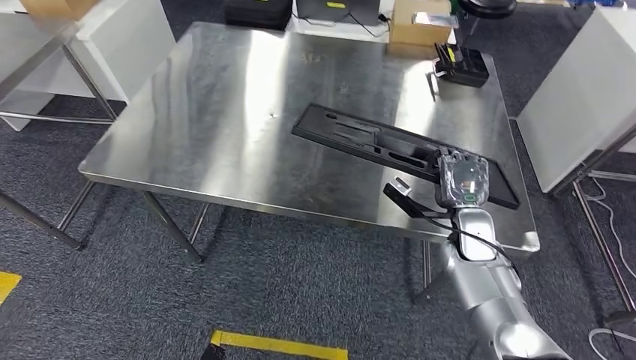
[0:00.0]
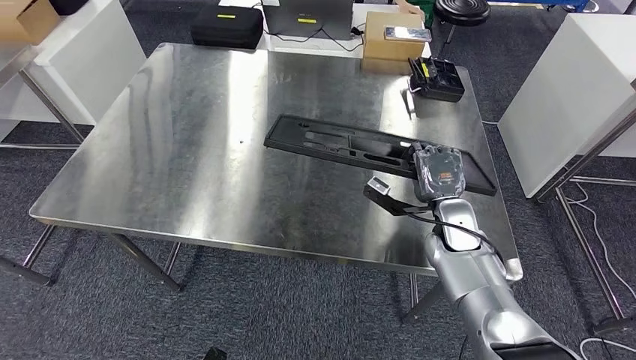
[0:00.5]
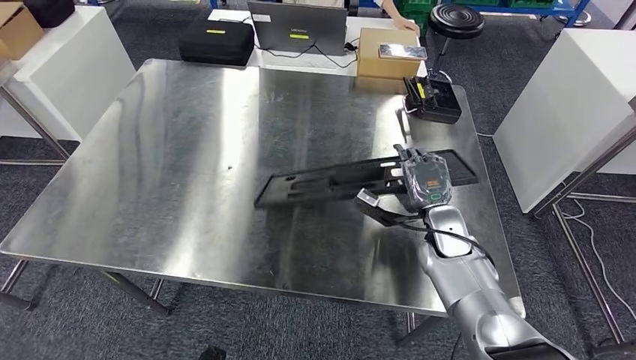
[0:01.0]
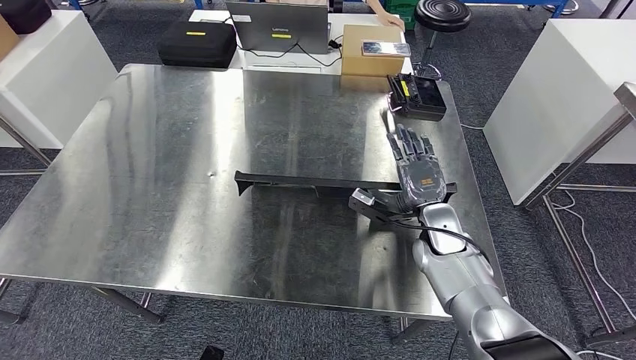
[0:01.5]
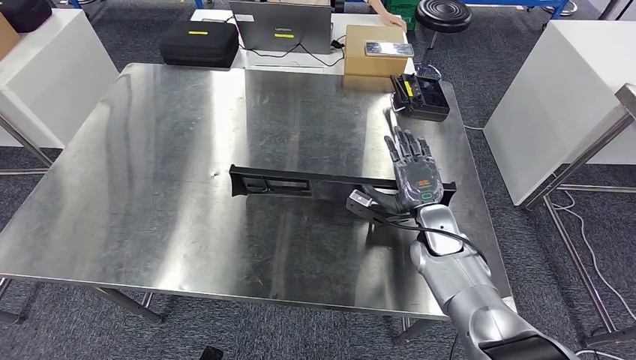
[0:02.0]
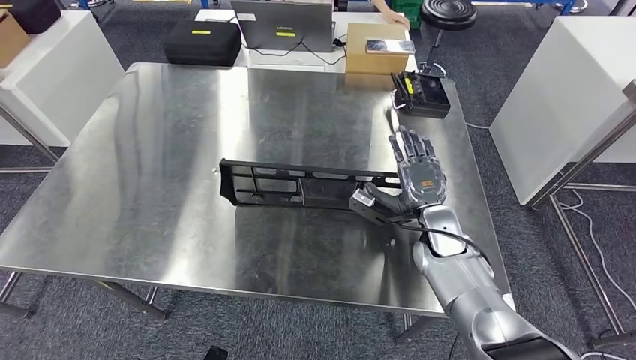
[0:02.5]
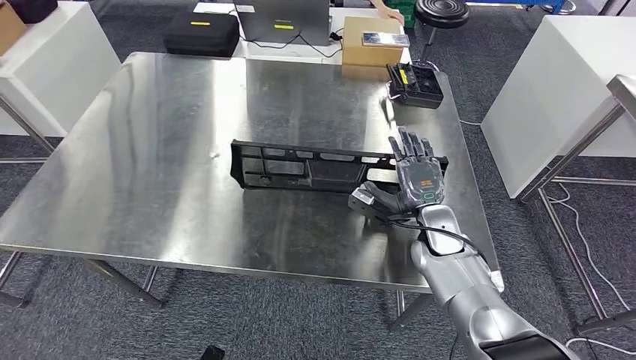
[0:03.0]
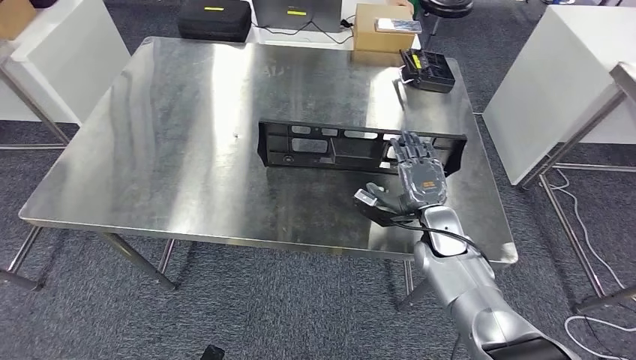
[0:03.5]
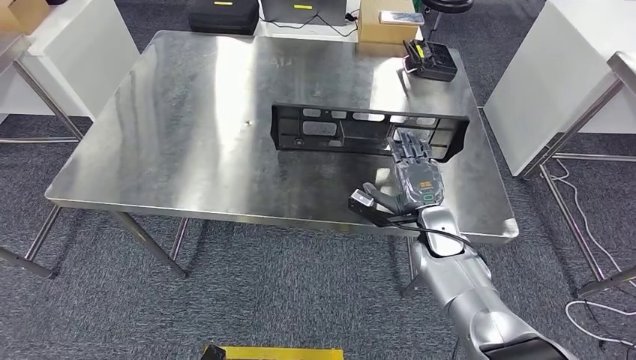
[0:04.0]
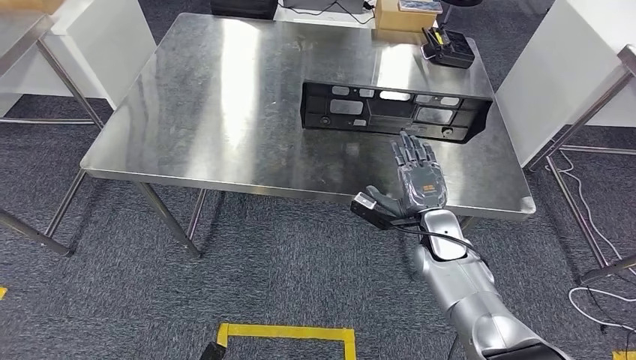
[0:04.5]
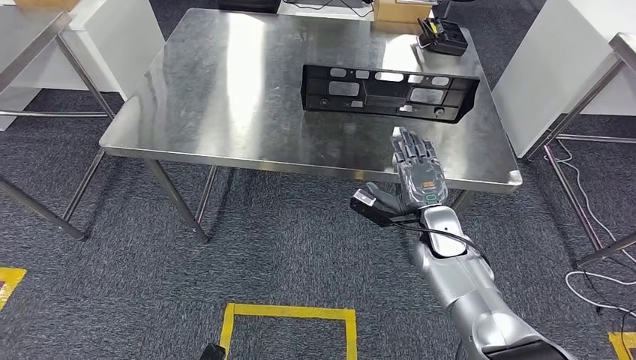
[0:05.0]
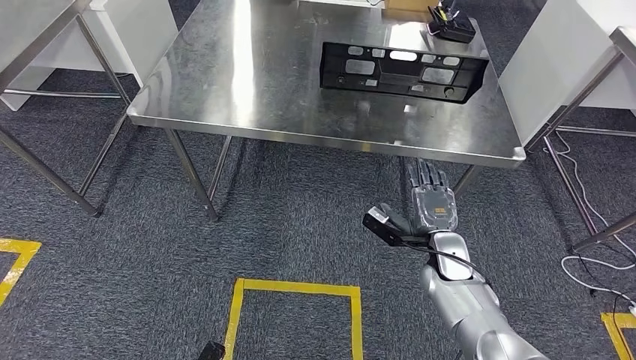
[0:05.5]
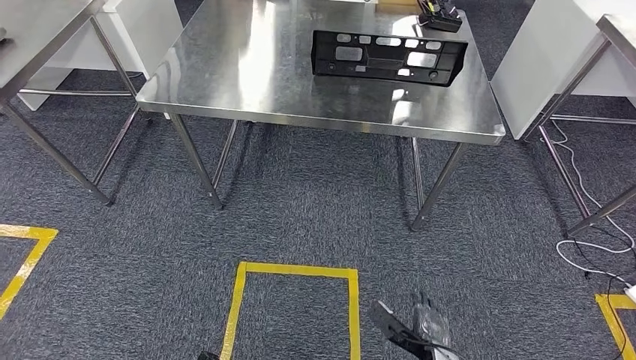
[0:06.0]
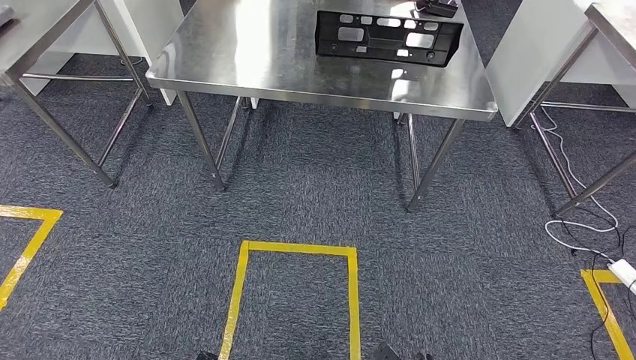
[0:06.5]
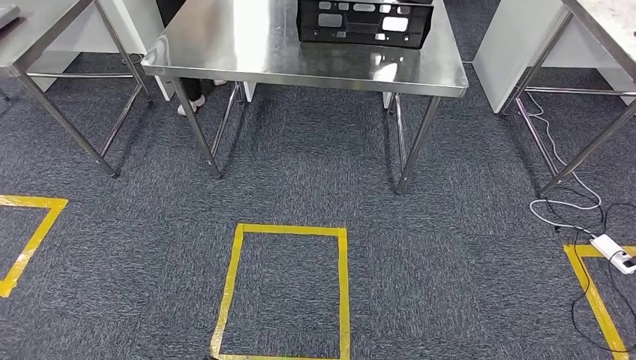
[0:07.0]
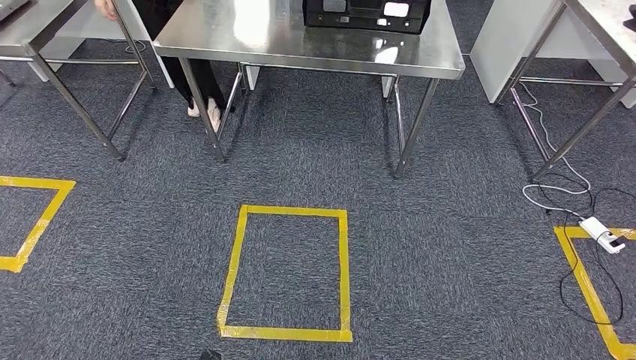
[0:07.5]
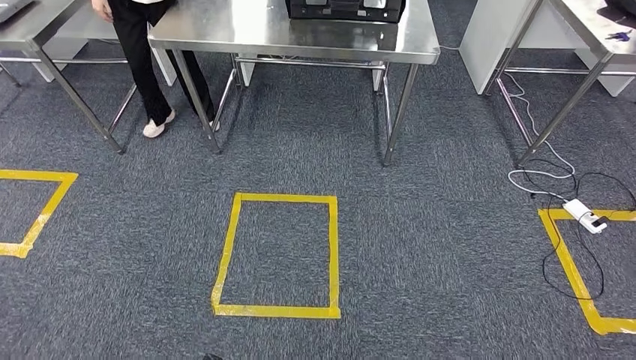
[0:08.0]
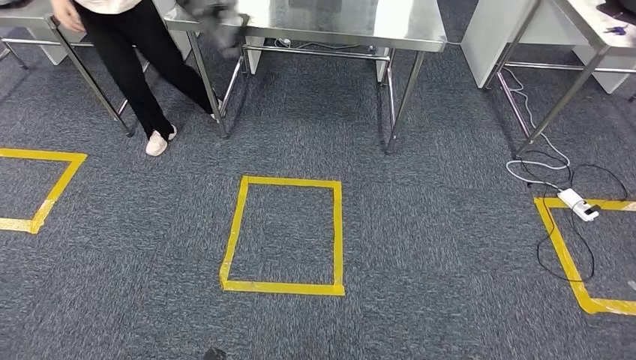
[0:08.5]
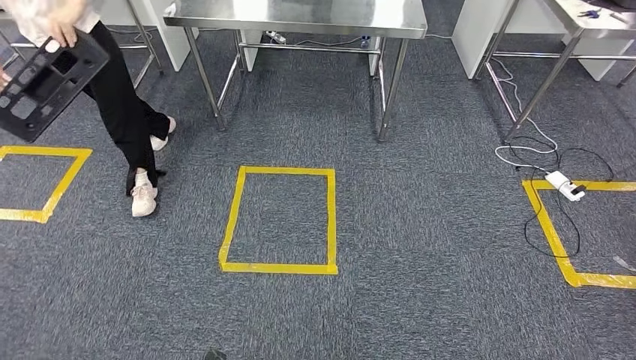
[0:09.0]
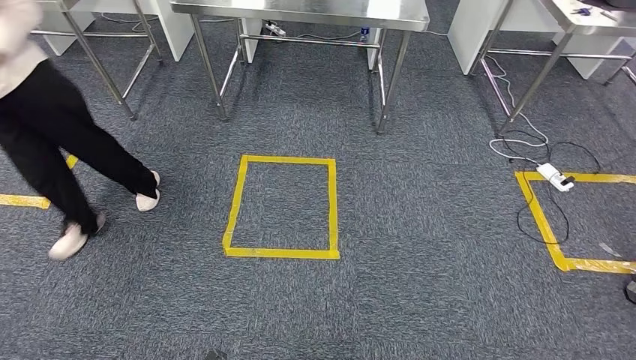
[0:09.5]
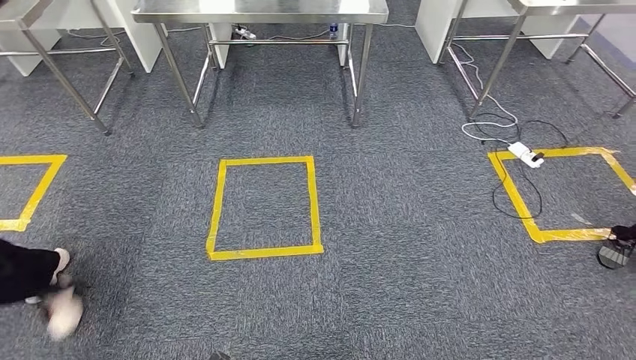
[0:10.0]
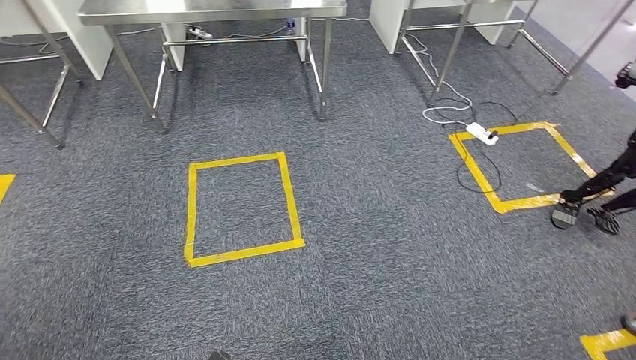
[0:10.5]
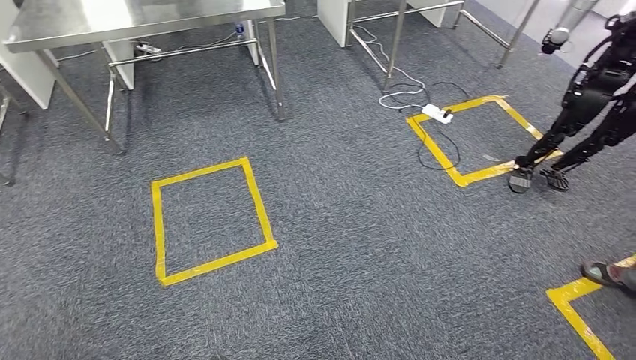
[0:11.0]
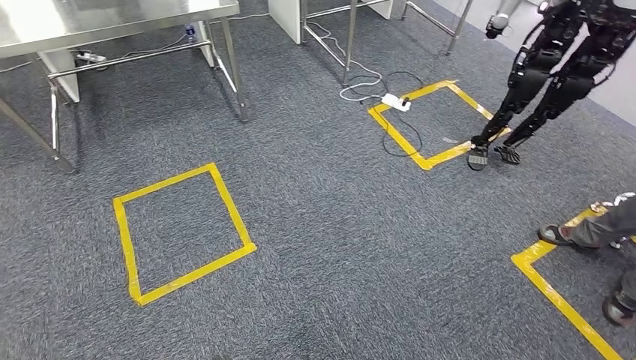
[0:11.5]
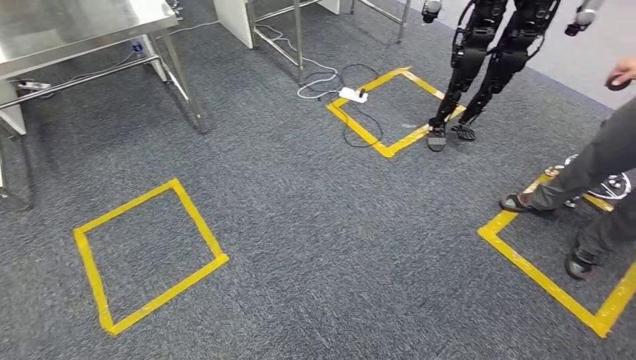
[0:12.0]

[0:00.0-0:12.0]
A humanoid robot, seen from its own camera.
Step, 0:00.0 to 0:06.0: Insert the large material into the corresponding slot on the workbench.

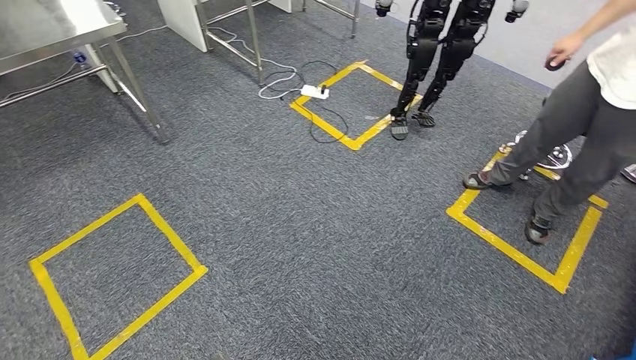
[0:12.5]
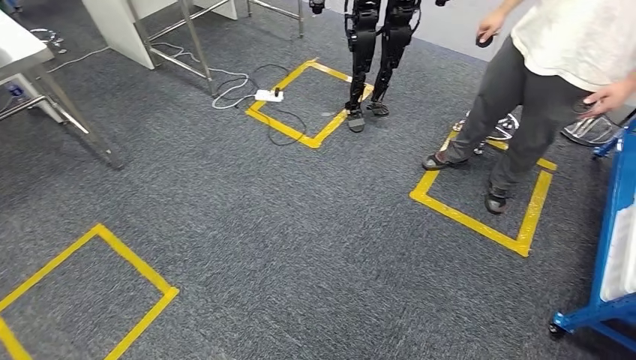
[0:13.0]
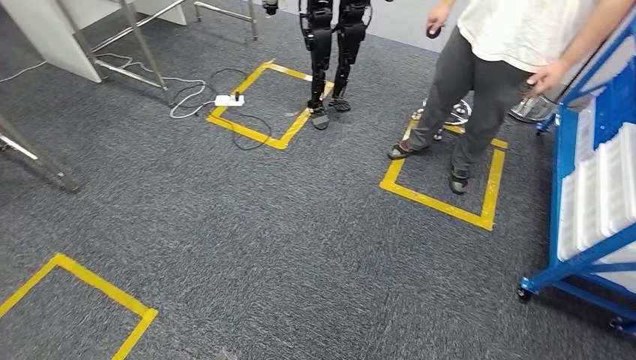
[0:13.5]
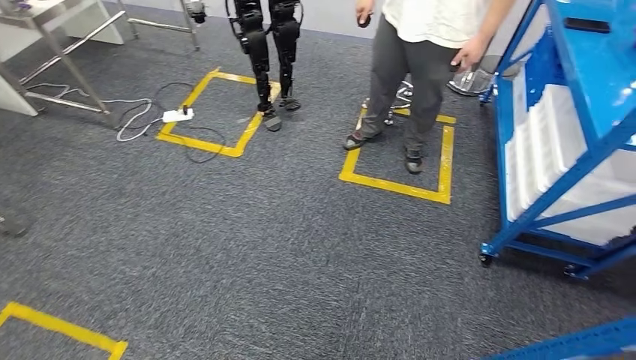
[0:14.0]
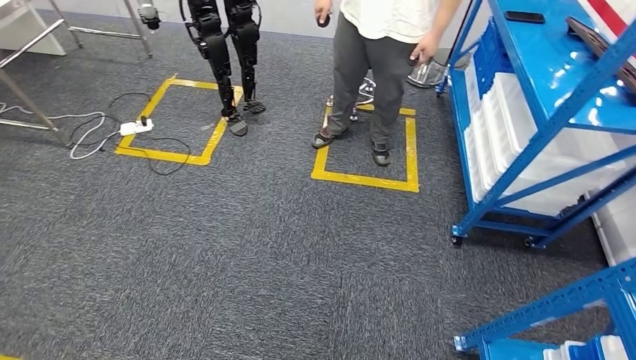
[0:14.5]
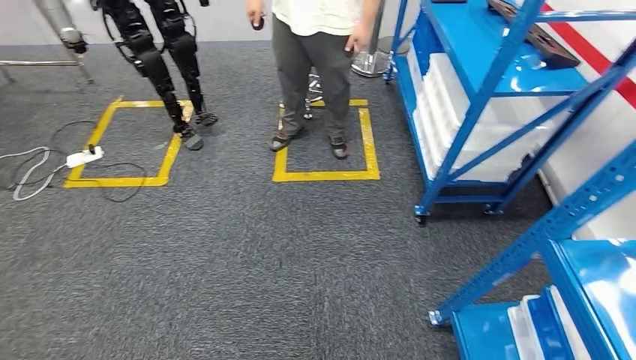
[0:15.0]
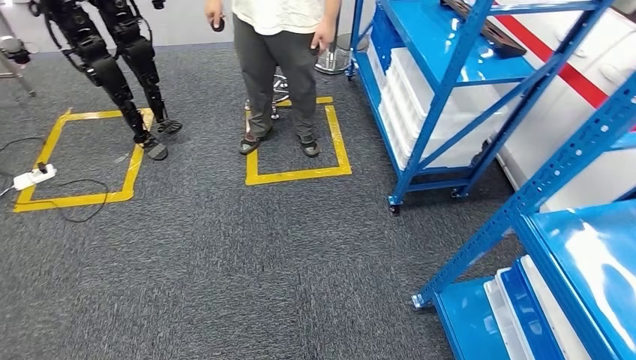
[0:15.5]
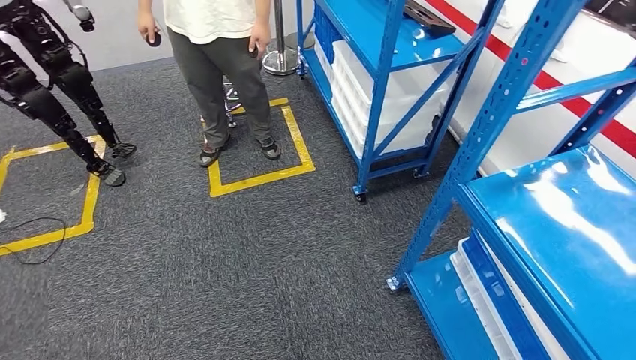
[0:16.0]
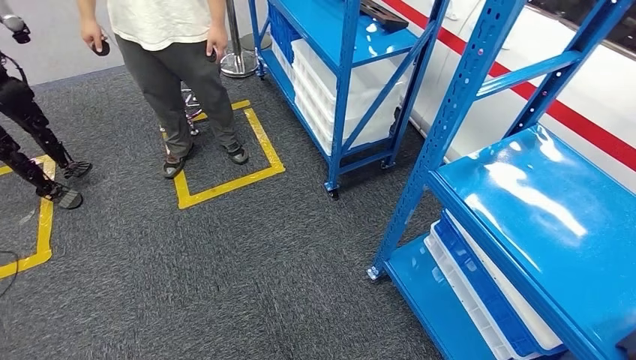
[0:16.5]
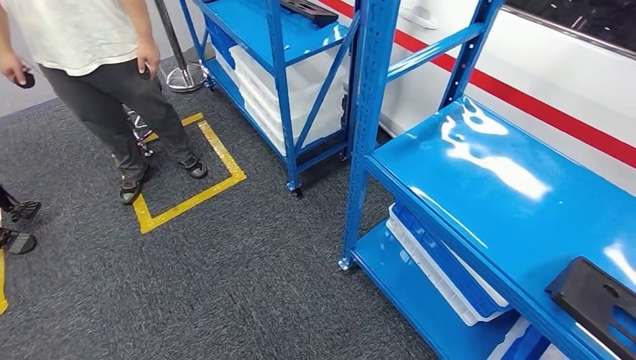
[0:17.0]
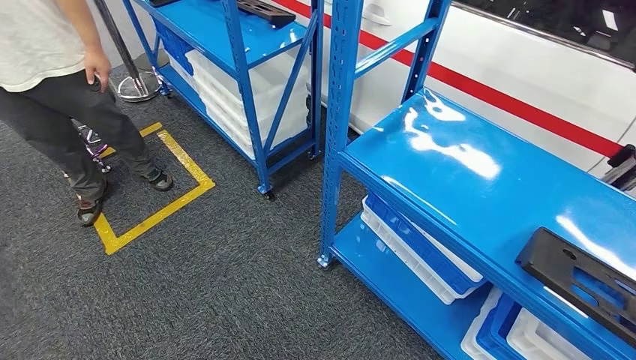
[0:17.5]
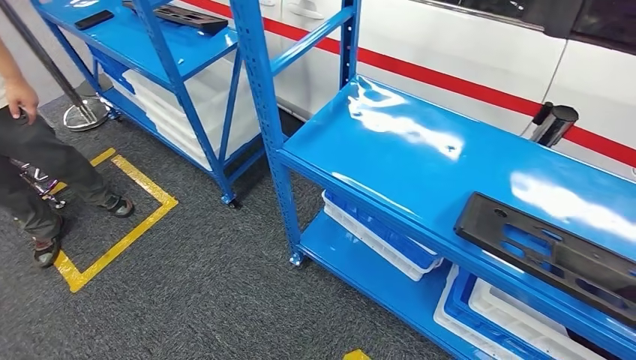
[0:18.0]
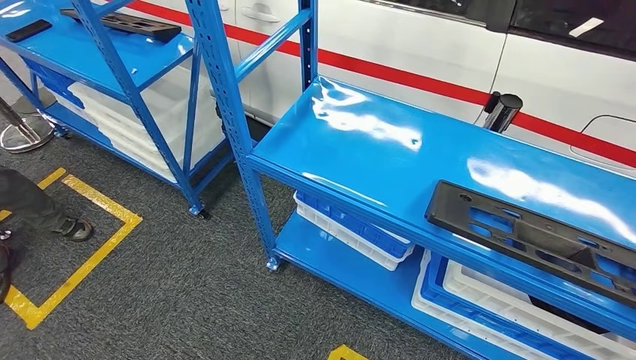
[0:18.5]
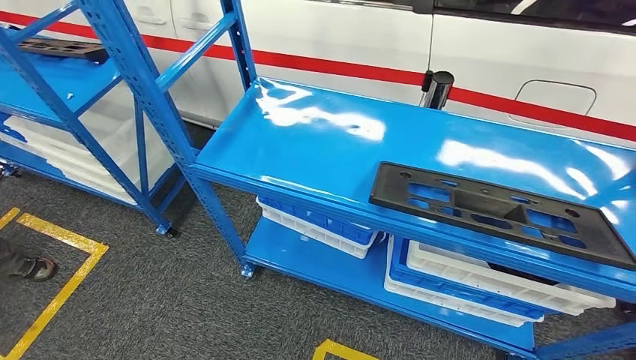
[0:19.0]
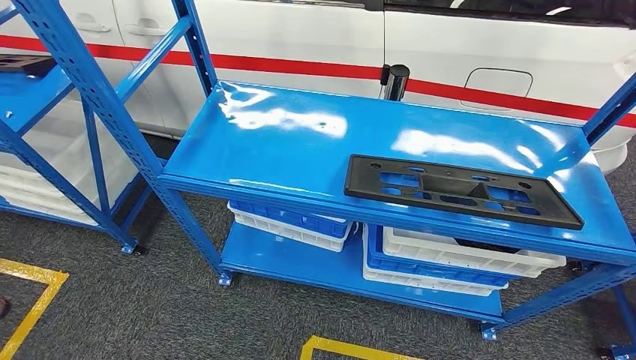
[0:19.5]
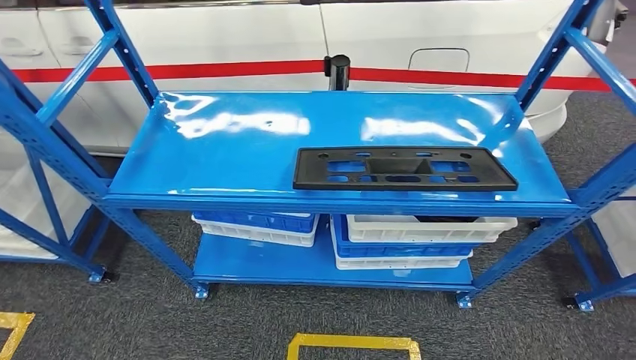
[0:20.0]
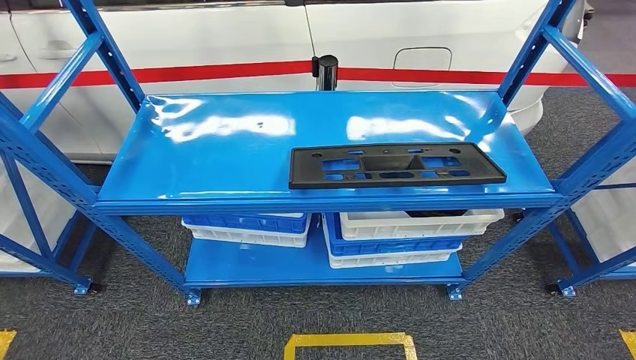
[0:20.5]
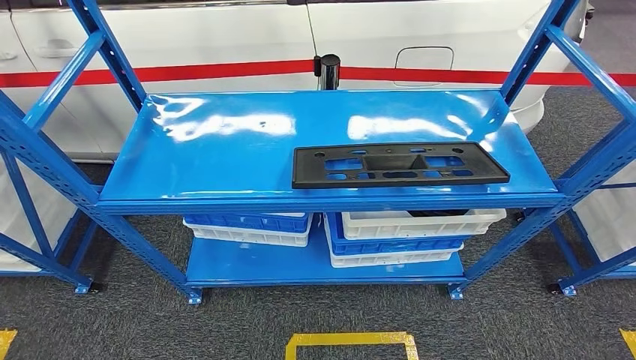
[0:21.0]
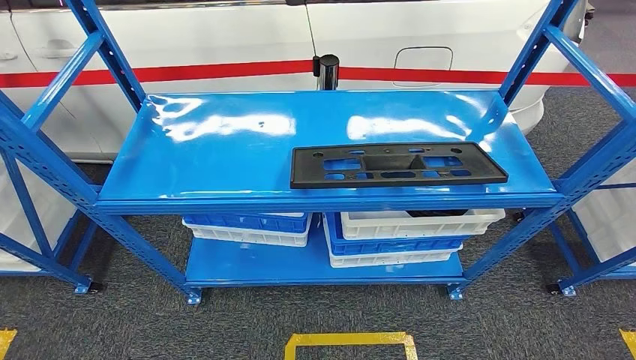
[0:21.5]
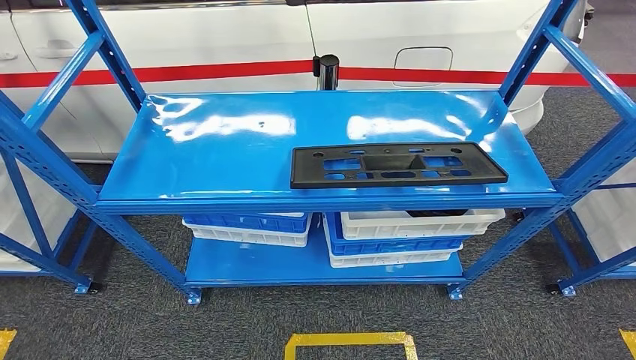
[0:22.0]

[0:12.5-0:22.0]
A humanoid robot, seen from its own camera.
Step, 0:12.5 to 0:22.0: Move to the initial position of the shelf.
